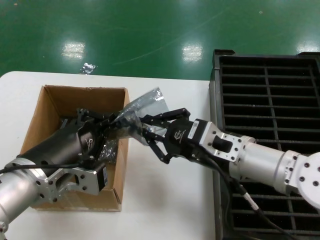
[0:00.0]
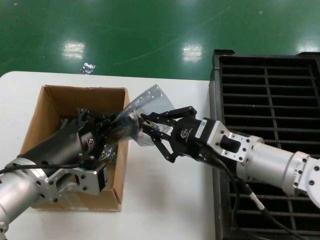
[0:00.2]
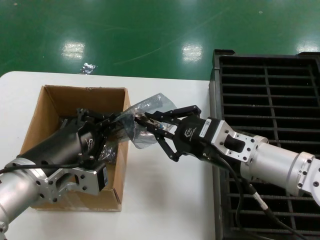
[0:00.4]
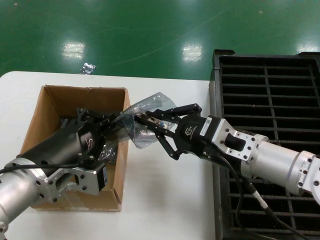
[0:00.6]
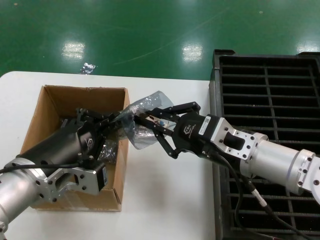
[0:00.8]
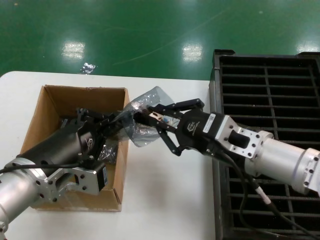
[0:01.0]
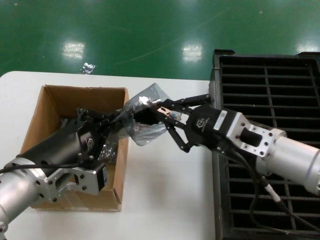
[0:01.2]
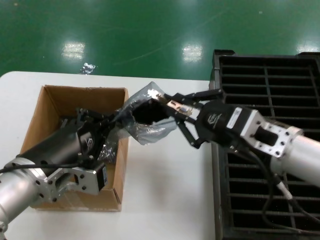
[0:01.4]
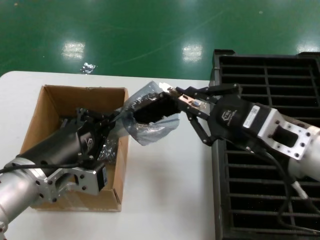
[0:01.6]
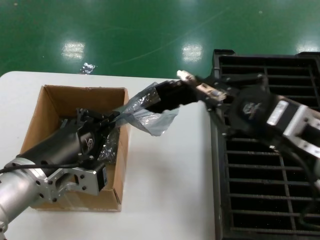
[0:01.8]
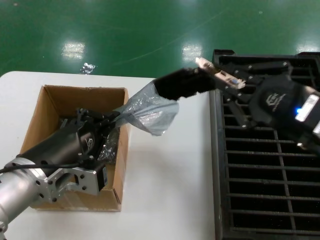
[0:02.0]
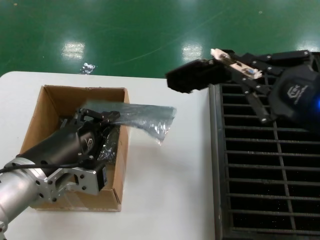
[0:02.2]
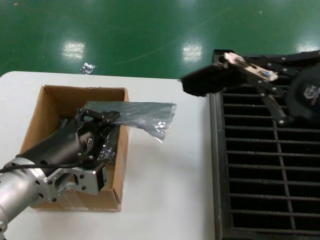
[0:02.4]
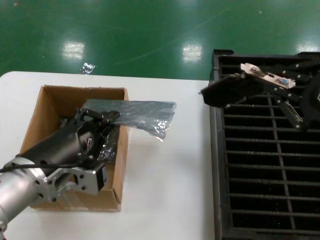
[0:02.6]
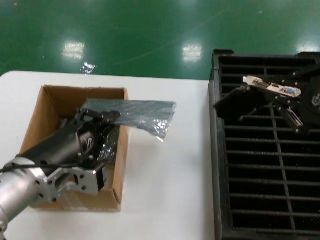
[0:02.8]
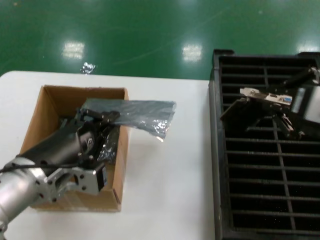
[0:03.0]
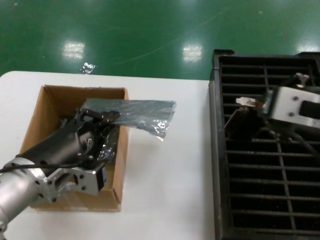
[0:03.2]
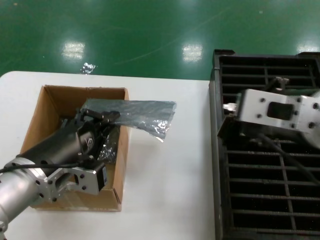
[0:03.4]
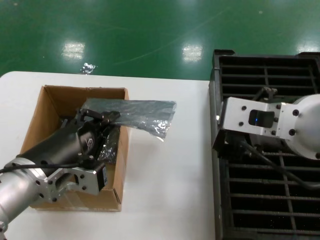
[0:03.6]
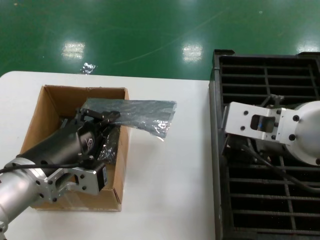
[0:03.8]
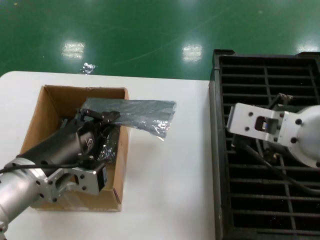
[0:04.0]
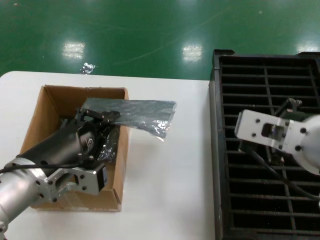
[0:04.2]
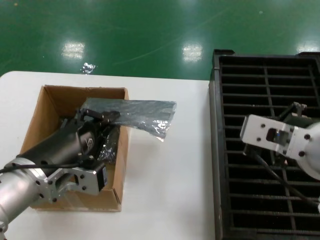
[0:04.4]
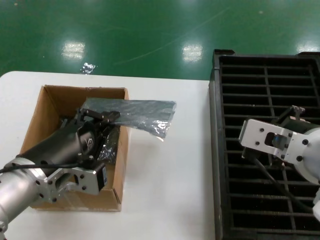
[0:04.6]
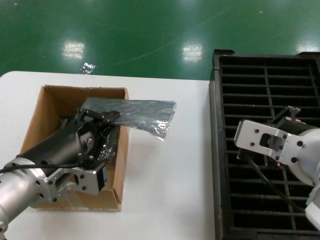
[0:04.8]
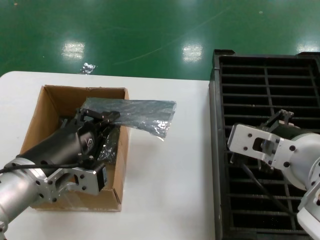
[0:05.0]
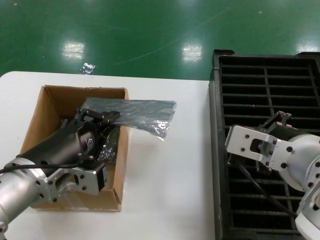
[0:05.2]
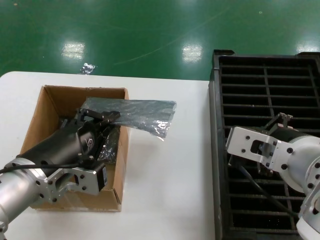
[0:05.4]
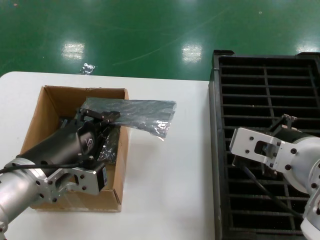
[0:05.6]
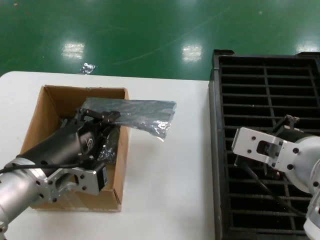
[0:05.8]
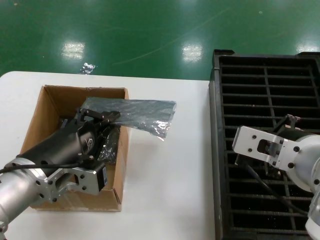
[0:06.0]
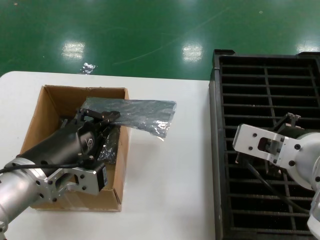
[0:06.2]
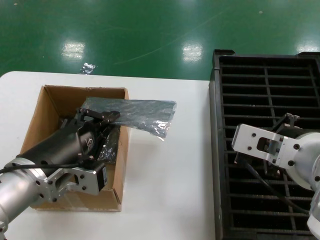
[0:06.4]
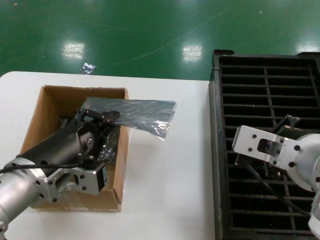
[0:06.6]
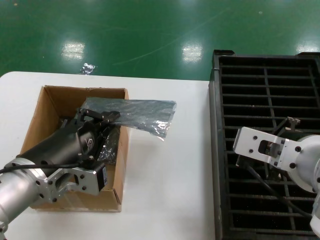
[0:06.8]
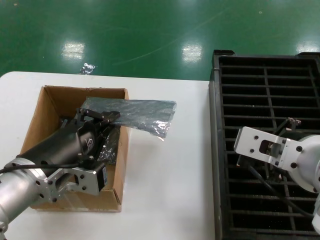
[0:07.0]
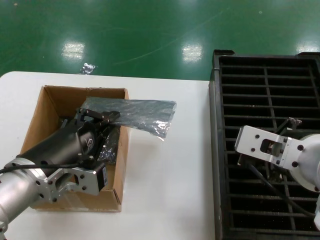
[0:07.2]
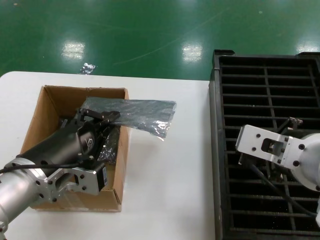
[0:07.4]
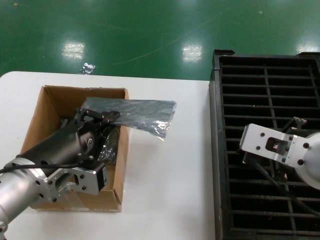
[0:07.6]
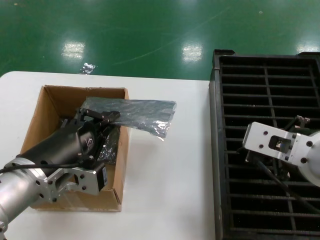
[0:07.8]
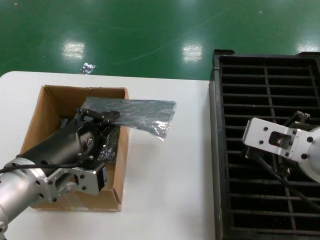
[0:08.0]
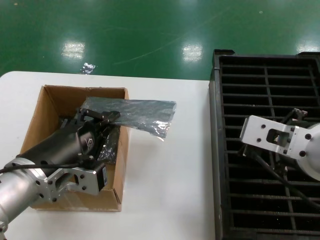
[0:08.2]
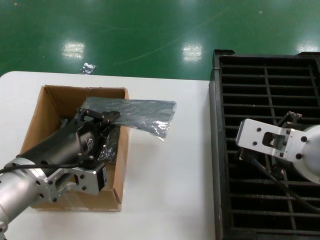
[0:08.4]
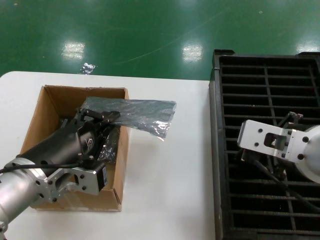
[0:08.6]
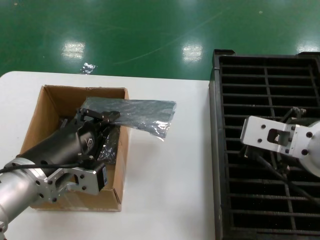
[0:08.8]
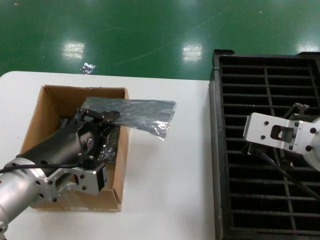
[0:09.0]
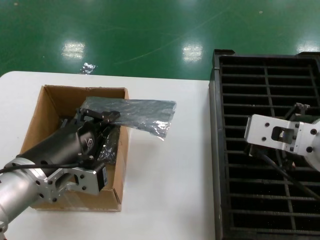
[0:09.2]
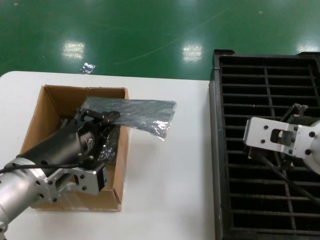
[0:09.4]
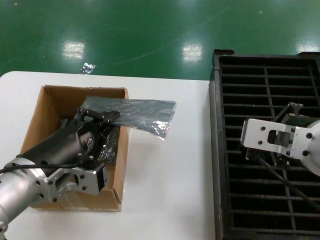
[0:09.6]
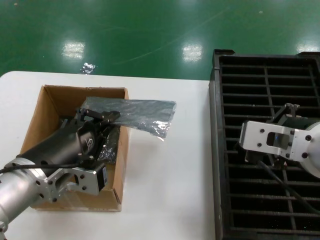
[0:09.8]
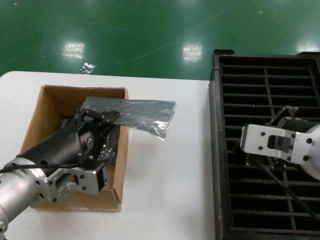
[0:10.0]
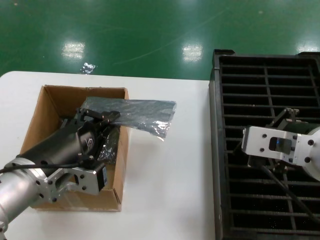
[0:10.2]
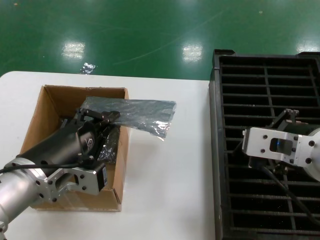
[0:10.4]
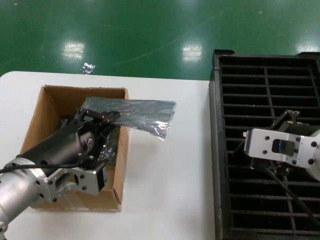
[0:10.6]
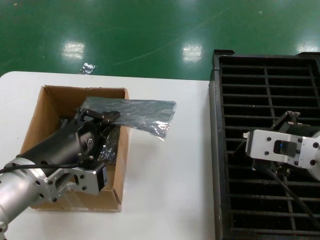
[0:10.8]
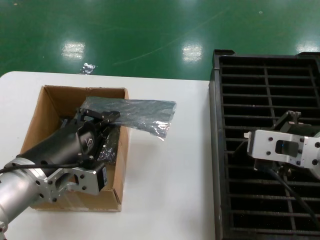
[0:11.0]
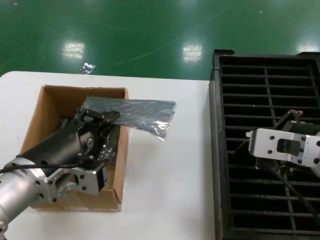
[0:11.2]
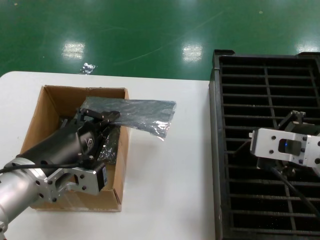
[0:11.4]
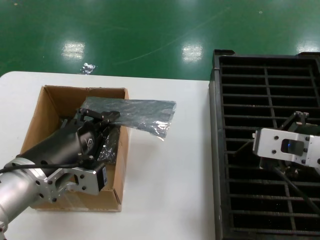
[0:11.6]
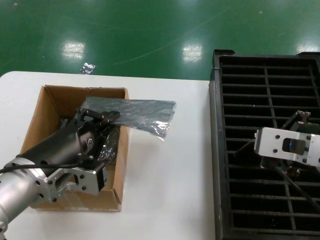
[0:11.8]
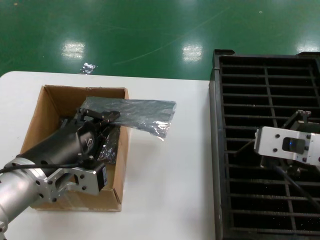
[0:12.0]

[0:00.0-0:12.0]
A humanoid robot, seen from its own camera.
Task of the whole recording: take out graphics card from box remove packaging put into black container.
Step, 0:00.0 to 0:02.0: Take out the hard disk of the bag.
0:00.0 to 0:01.6: The right hand is displaced backward, to the right and upward by some 10 cm.
0:01.6 to 0:03.0: The right hand shifts roughly 10 cm upward.
0:03.0 to 0:04.4: The right hand heads to the left, covering about 10 cm.
0:04.4 to 0:06.0: The hands make only small movements.
0:06.0 to 0:07.6: Both hands stay about where they are.
0:07.6 to 0:12.0: The hands make only small movements.

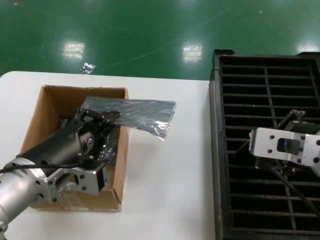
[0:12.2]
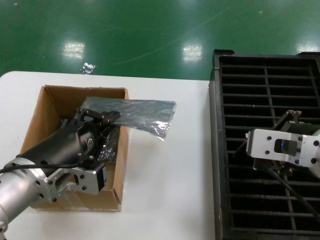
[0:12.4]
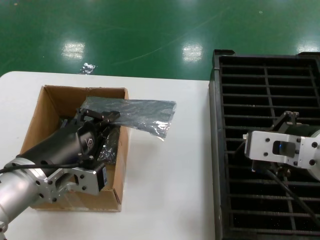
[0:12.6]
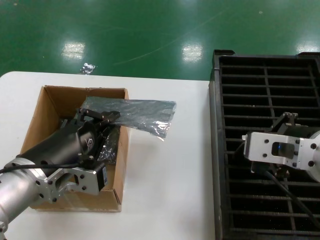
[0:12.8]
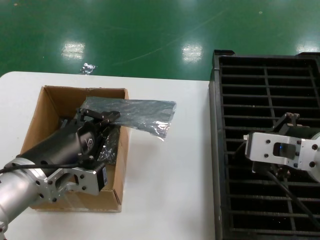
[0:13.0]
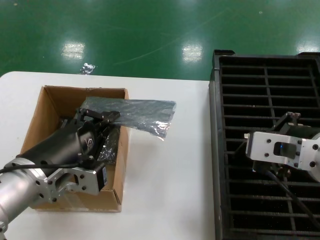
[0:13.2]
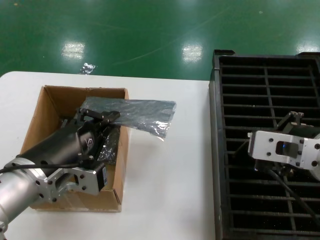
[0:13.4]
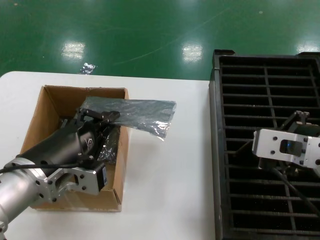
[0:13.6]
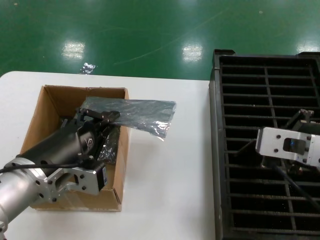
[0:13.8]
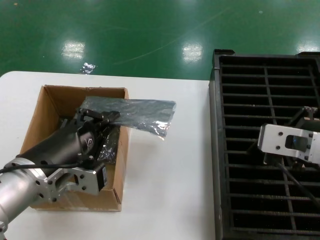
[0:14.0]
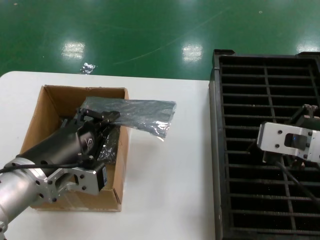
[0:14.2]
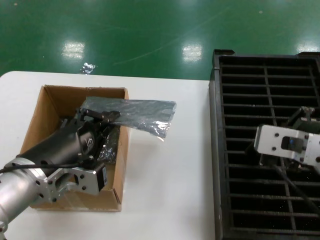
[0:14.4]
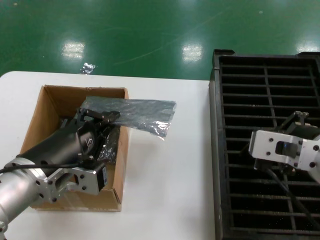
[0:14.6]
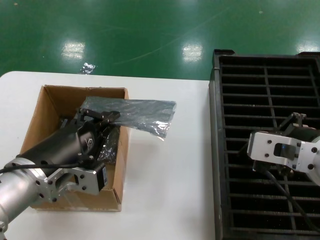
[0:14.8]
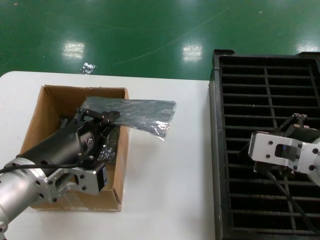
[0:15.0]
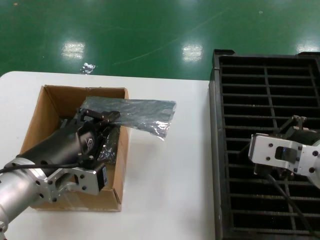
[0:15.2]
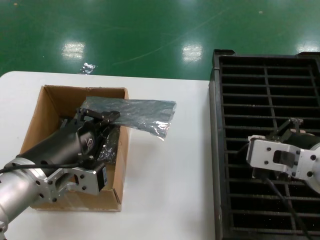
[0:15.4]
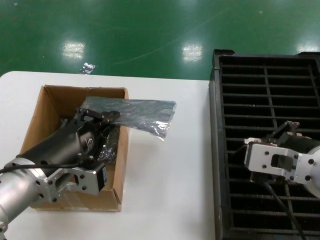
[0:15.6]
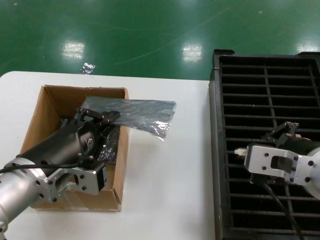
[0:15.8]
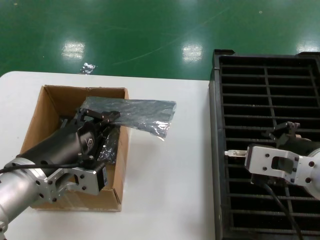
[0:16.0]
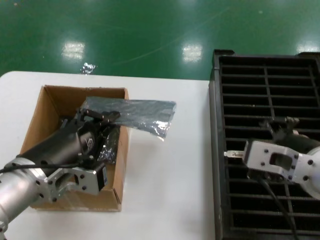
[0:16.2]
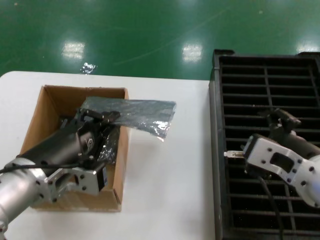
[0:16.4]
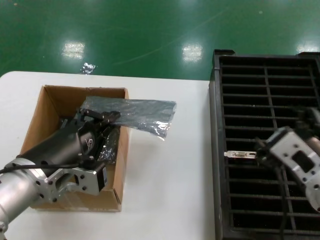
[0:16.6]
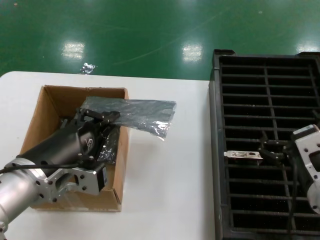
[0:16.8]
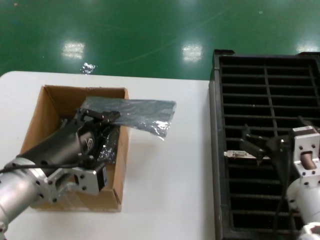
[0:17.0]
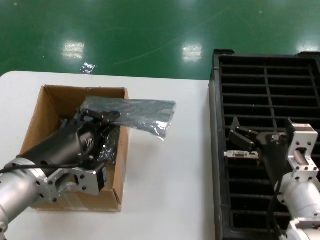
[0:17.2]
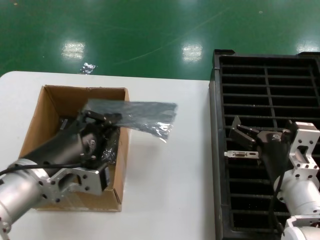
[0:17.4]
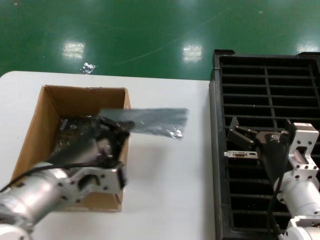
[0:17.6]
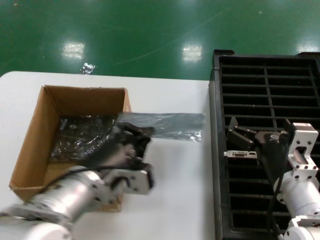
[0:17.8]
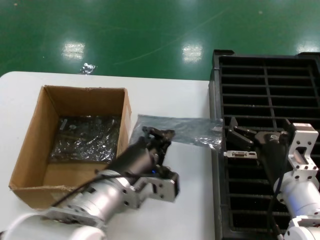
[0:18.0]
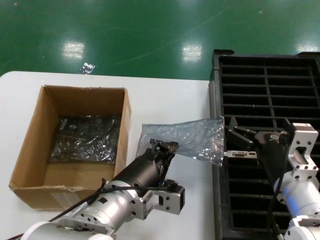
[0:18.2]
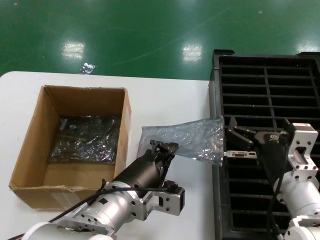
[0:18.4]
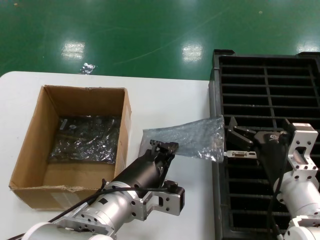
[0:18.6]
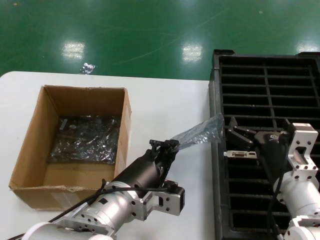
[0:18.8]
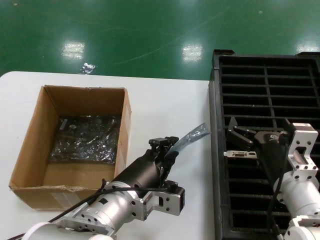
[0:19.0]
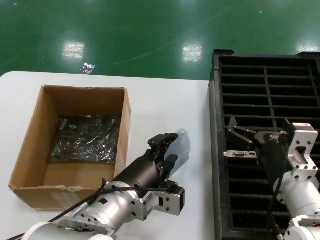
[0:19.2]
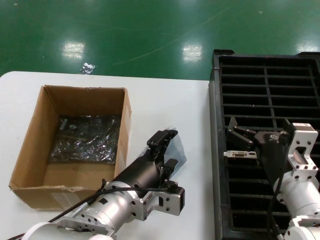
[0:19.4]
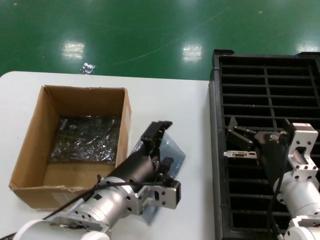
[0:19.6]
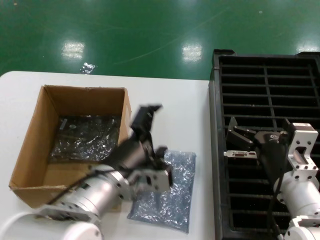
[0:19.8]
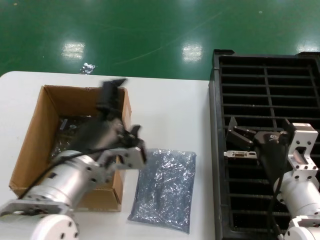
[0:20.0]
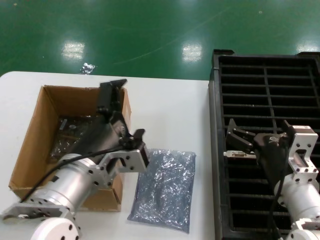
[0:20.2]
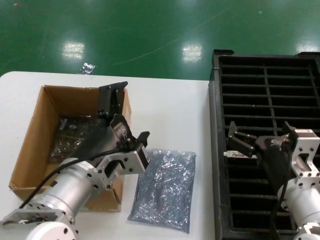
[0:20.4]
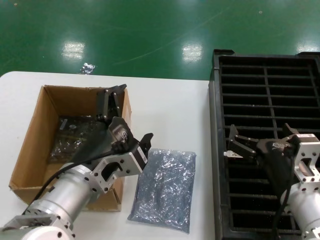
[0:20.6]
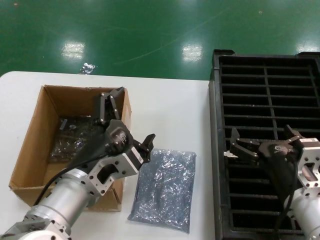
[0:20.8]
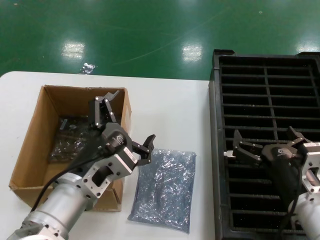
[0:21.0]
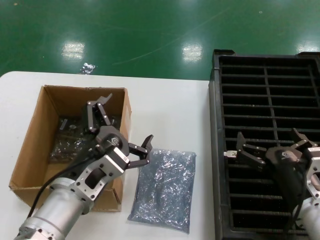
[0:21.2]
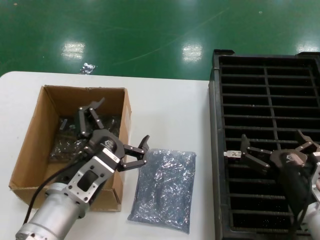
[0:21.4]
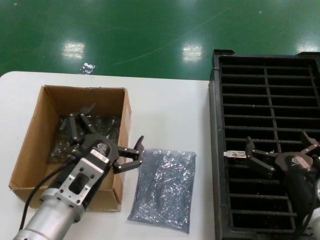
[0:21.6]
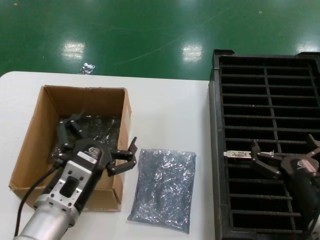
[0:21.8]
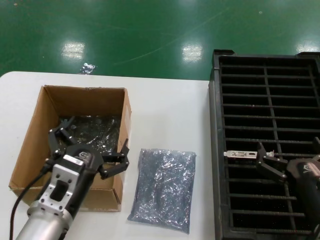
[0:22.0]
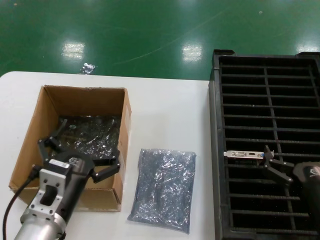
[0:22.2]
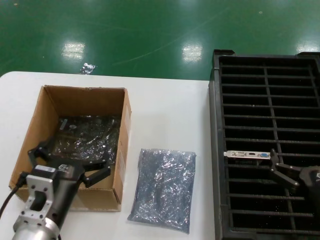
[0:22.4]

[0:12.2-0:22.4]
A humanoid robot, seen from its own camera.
Task of the whole recording: take out graphics card from box remove packaging put into black container.
Step, 0:12.2 to 0:16.6: Place the hard disk in the hard disk enclosure.
Step, 0:16.8 to 0:19.6: Place the down the bag.
0:12.2 to 0:13.6: The two hands keep their place.
0:13.6 to 0:15.2: The hands move only a little.
0:15.2 to 0:16.6: The right hand is displaced downward by some 5 cm.
0:16.6 to 0:18.0: The left hand travels to the right by about 10 cm. The right hand shifts about 10 cm downward and forward.
0:18.0 to 0:19.4: The hands make only small movements.
0:19.4 to 0:21.0: The left hand is displaced to the left by about 5 cm.
0:21.0 to 0:22.4: The right hand moves to the right, some 5 cm; the left hand moves downward and to the left, about 10 cm.
